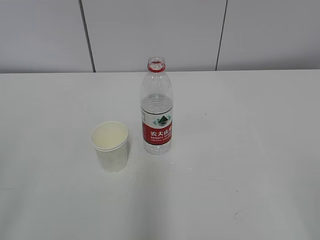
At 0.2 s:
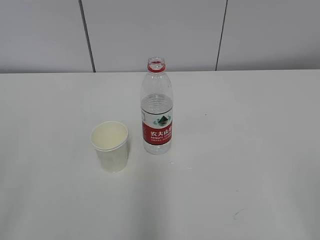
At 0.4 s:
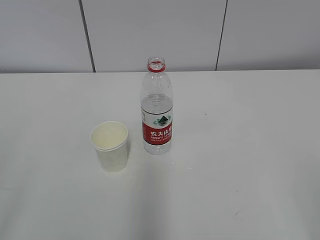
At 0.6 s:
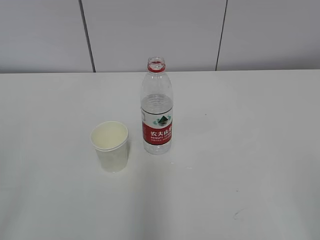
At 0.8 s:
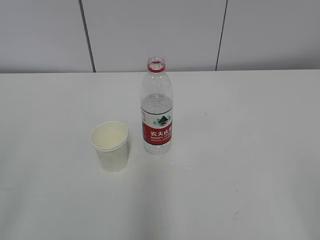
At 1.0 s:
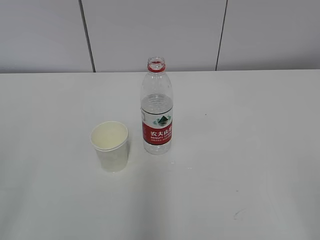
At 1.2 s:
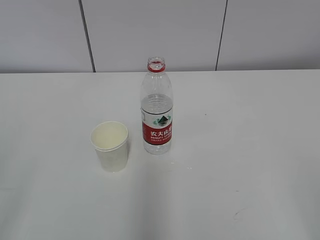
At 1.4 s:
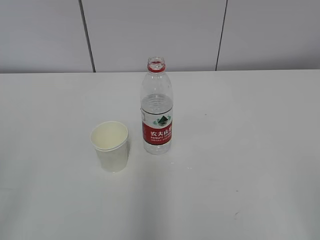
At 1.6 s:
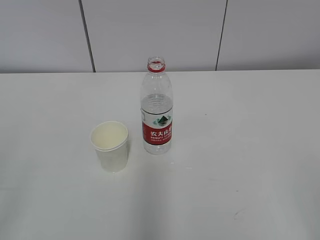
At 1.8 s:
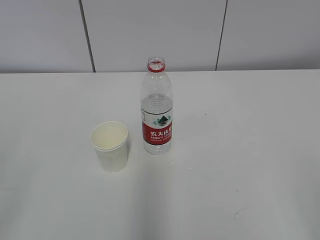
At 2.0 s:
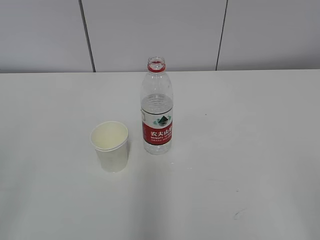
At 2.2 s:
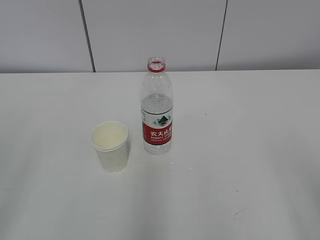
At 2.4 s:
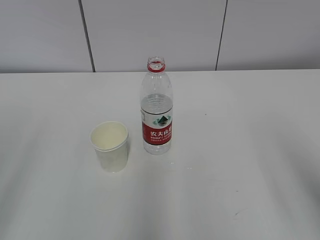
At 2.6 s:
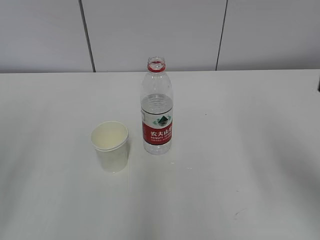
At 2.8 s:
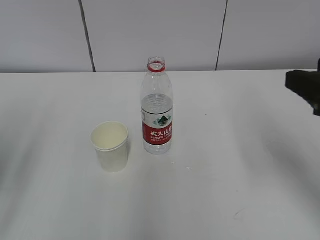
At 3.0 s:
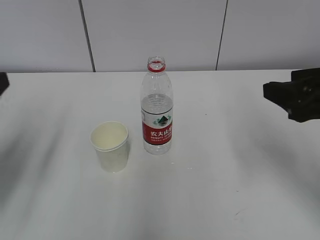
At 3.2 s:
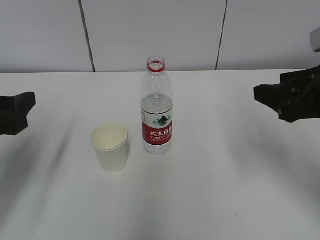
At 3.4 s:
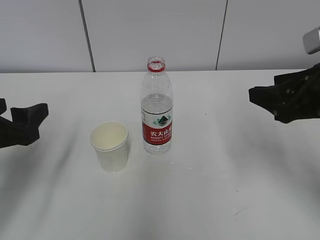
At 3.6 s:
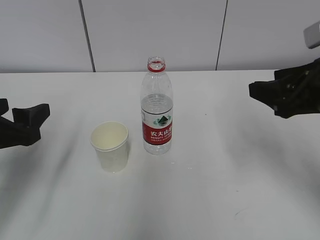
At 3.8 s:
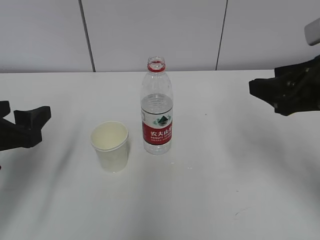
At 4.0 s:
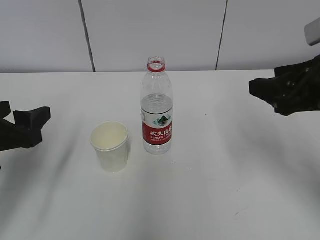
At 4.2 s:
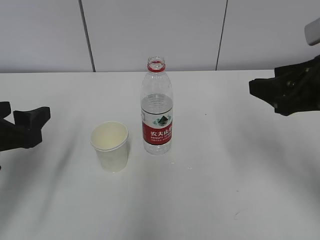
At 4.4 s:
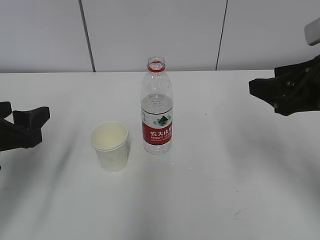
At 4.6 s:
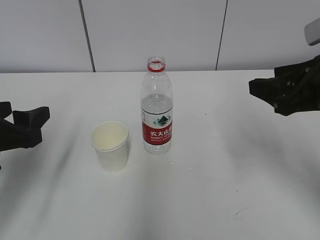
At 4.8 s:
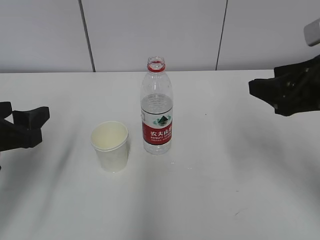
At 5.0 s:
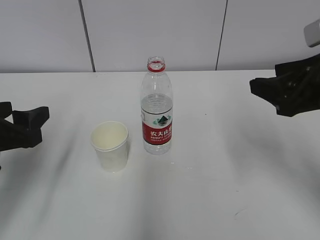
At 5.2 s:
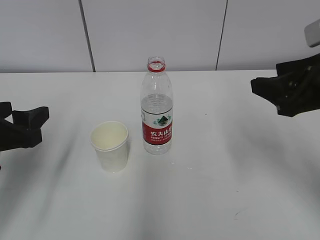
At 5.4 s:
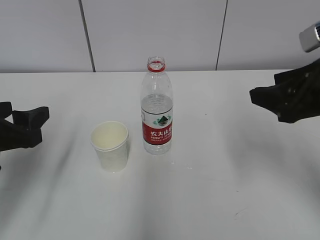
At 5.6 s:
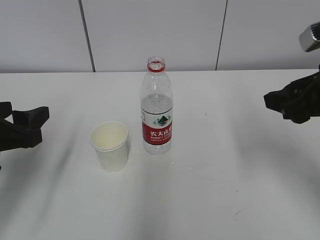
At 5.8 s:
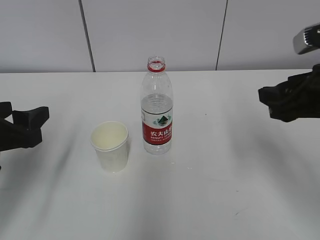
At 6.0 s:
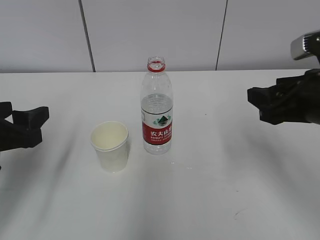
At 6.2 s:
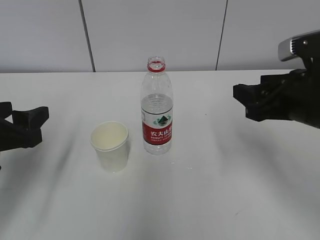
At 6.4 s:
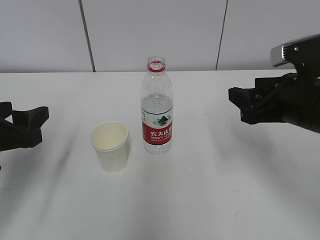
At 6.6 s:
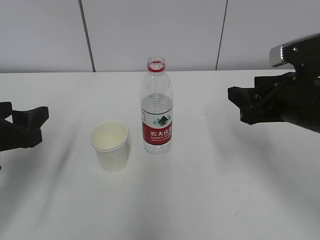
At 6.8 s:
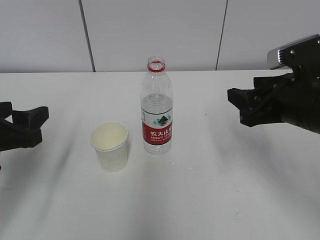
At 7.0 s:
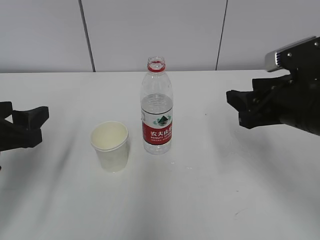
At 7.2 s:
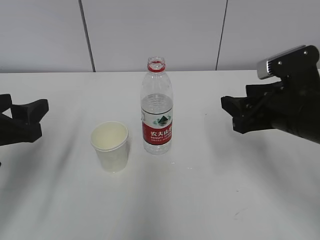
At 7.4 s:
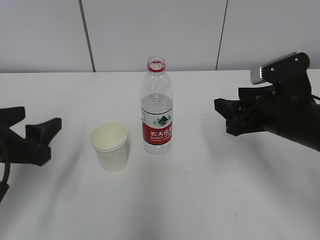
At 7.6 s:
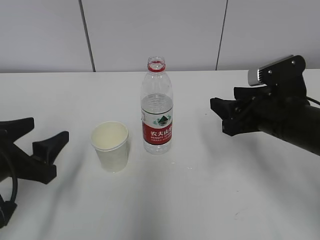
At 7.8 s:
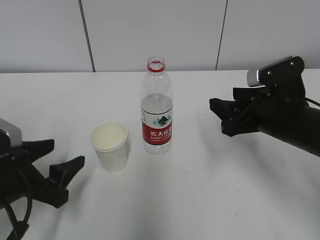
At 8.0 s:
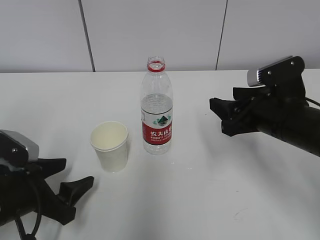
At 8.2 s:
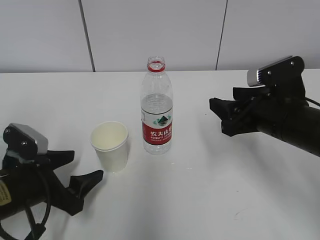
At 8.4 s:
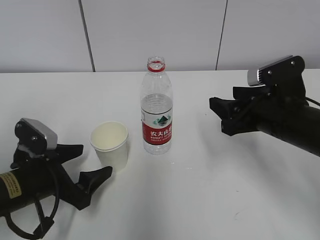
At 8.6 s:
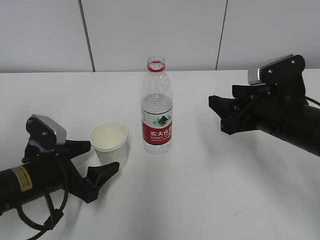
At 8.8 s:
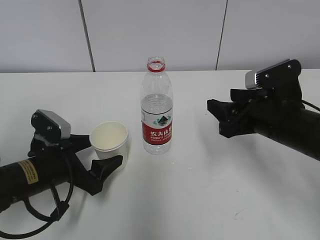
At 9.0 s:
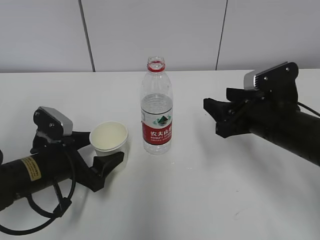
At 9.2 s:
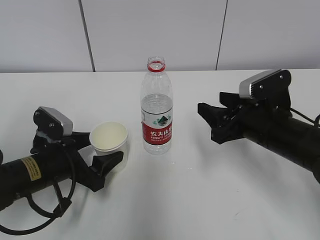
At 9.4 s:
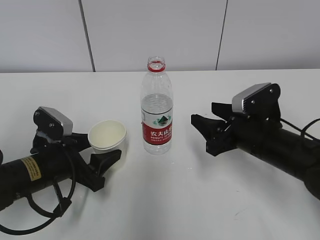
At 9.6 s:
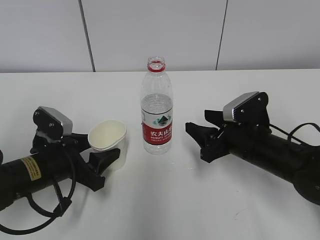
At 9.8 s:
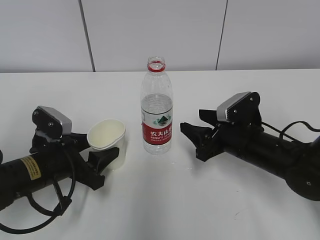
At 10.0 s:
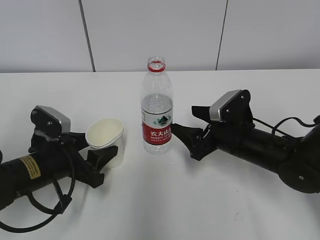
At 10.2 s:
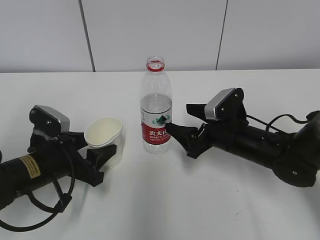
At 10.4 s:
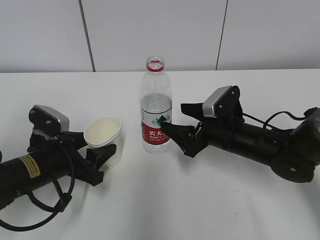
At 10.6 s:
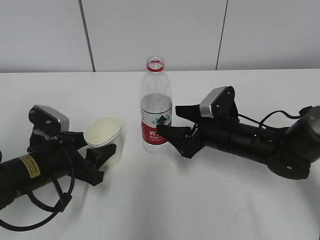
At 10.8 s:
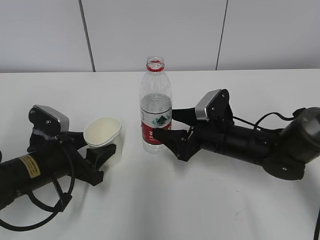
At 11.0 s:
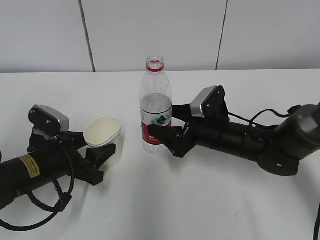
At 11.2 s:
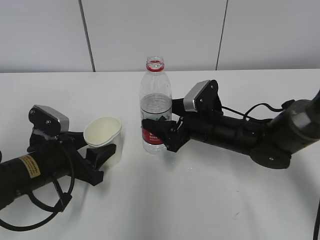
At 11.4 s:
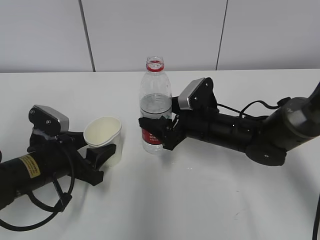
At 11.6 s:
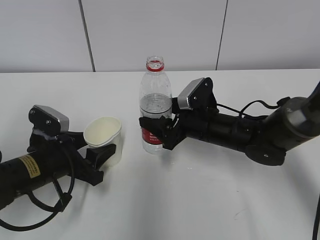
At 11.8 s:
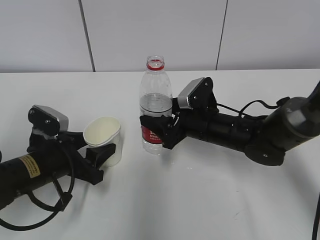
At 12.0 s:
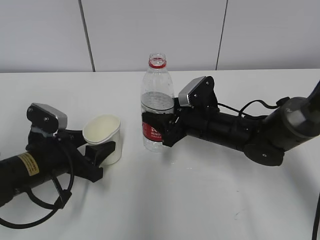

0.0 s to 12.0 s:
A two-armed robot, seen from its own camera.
Step, 0.0 to 8.0 s: Grab the paper cup with the left hand.
Step, 8.2 to 10.2 s: Grab the water bottle with the right hand.
1.6 to 3.0 s: Both grippers travel together forward, some 20 cm.
3.0 to 4.4 s: The left gripper heads downward, covering approximately 5 cm.
4.4 to 6.0 s: The grippers stay close to where they were, moving slightly.
6.0 to 7.6 s: The right gripper shifts roughly 5 cm downward.
7.6 to 9.0 s: The left gripper moves downward and forward, roughly 10 cm.
9.0 to 10.4 s: The left gripper closes up. Meanwhile the right gripper is displaced downward by about 5 cm, and opens.
10.4 to 12.0 s: The right gripper closes up.

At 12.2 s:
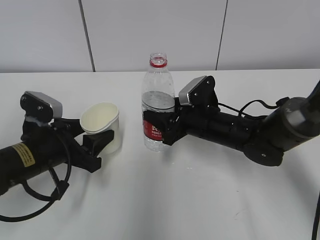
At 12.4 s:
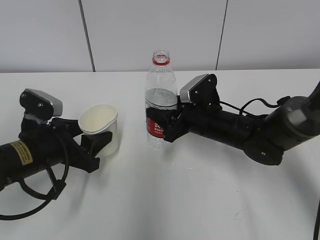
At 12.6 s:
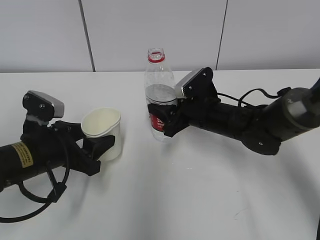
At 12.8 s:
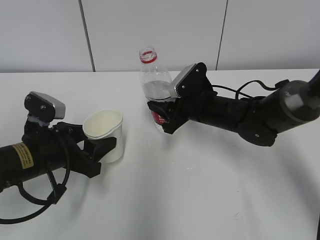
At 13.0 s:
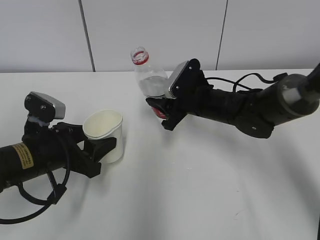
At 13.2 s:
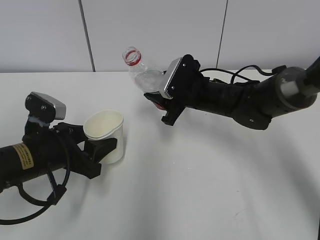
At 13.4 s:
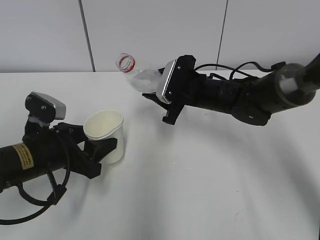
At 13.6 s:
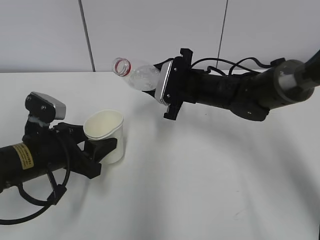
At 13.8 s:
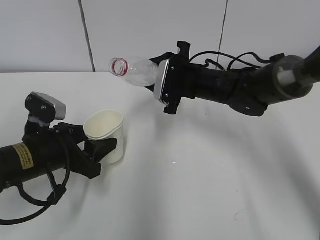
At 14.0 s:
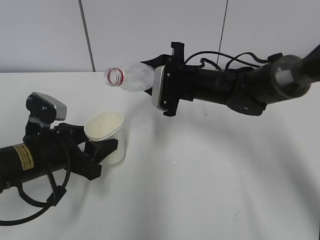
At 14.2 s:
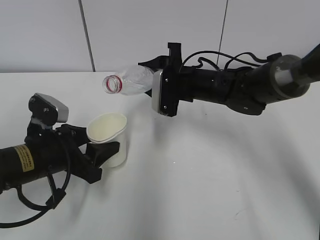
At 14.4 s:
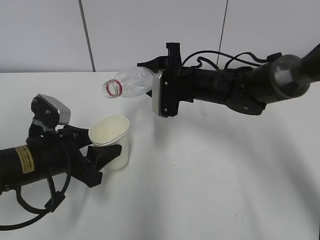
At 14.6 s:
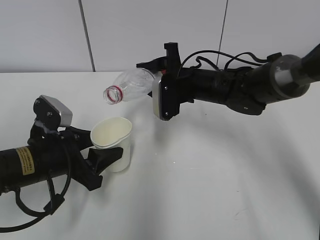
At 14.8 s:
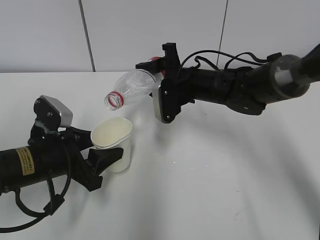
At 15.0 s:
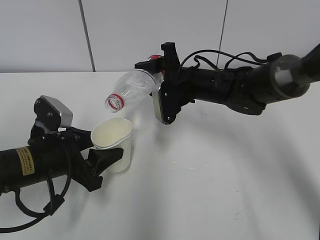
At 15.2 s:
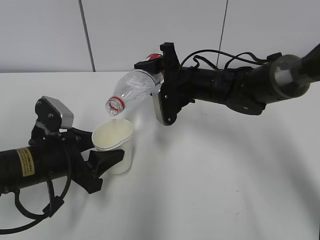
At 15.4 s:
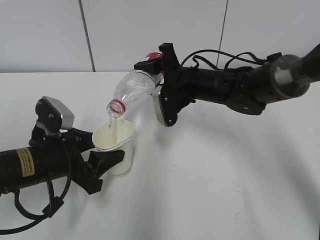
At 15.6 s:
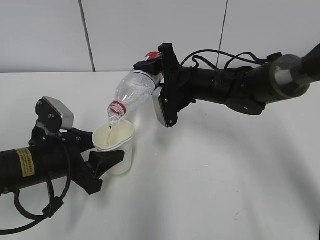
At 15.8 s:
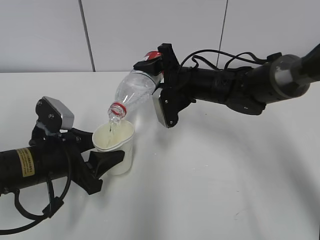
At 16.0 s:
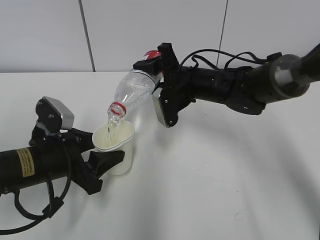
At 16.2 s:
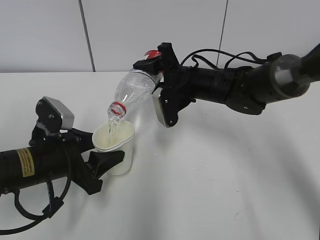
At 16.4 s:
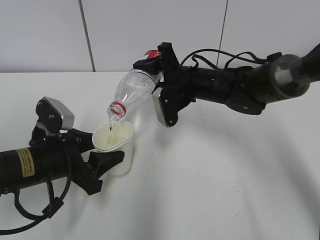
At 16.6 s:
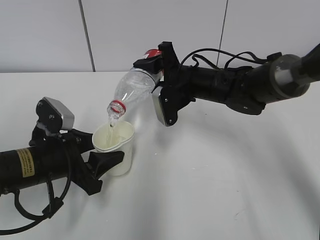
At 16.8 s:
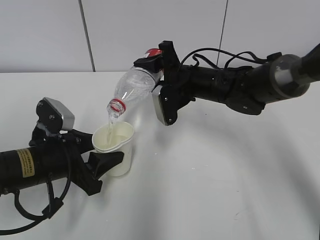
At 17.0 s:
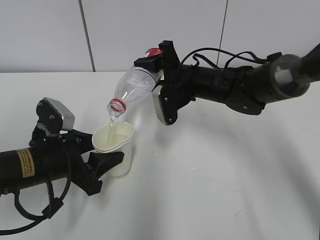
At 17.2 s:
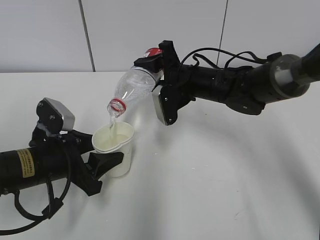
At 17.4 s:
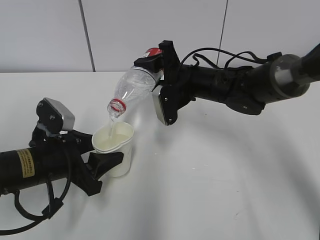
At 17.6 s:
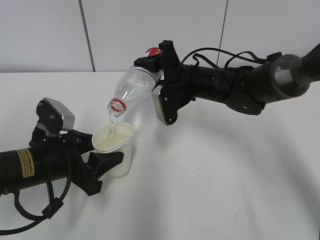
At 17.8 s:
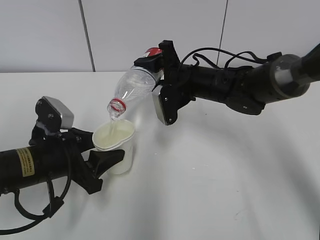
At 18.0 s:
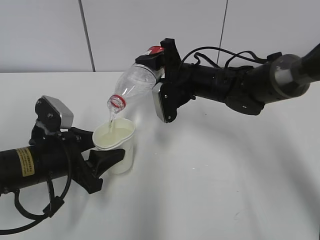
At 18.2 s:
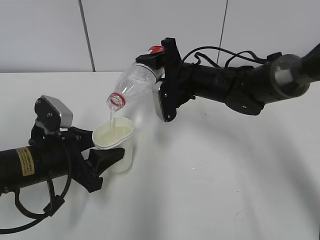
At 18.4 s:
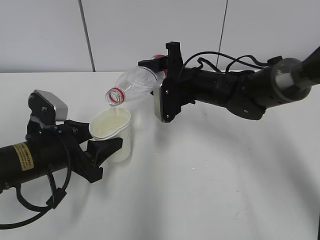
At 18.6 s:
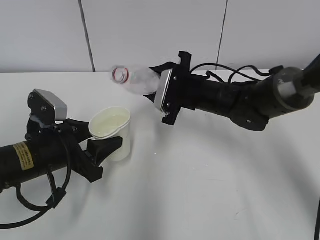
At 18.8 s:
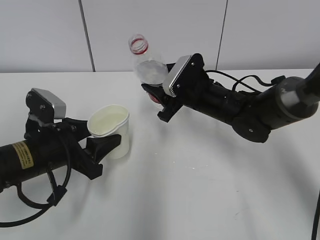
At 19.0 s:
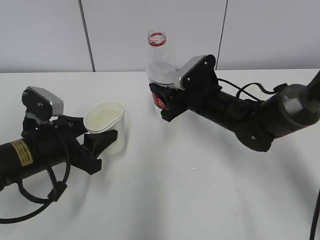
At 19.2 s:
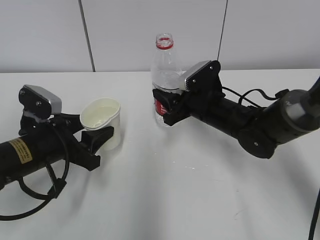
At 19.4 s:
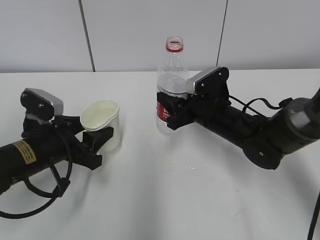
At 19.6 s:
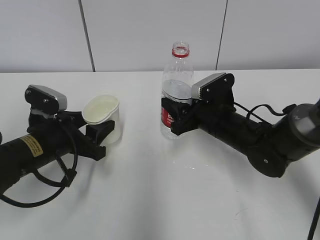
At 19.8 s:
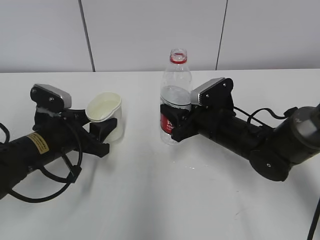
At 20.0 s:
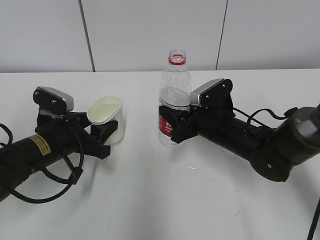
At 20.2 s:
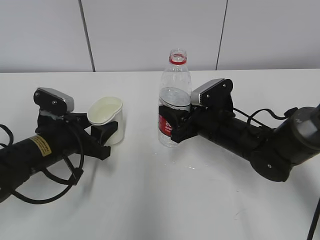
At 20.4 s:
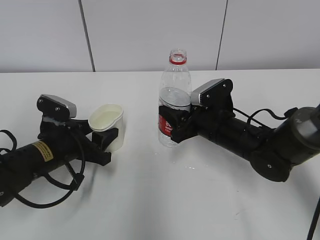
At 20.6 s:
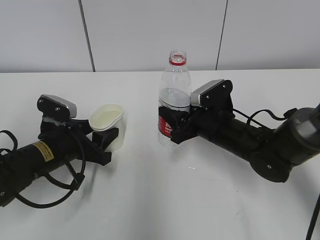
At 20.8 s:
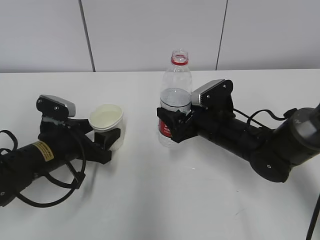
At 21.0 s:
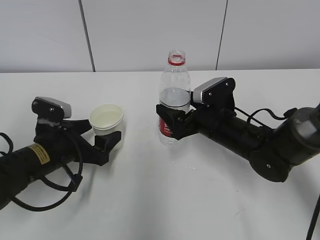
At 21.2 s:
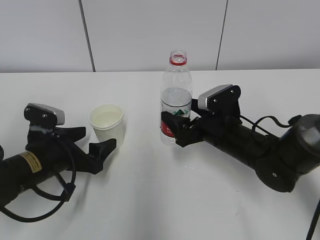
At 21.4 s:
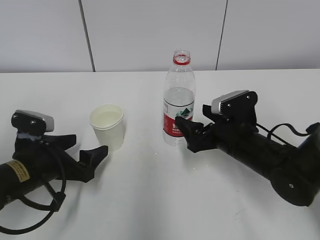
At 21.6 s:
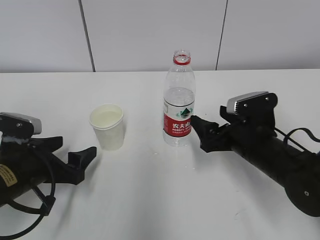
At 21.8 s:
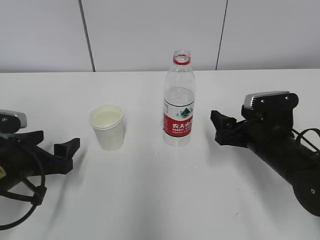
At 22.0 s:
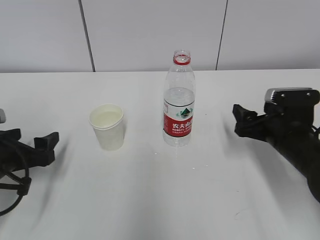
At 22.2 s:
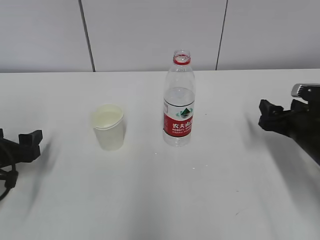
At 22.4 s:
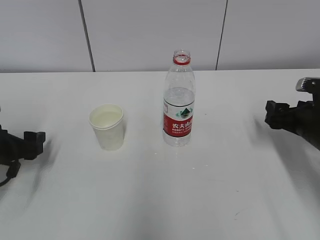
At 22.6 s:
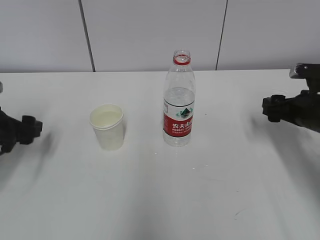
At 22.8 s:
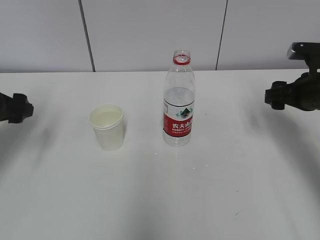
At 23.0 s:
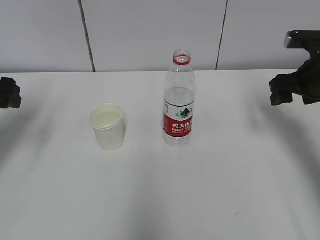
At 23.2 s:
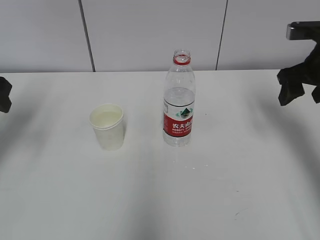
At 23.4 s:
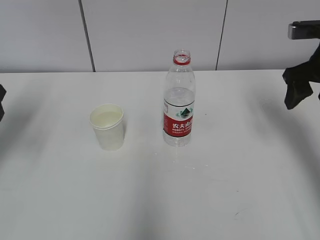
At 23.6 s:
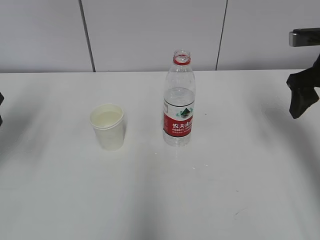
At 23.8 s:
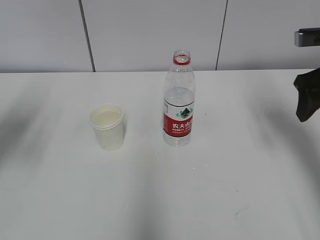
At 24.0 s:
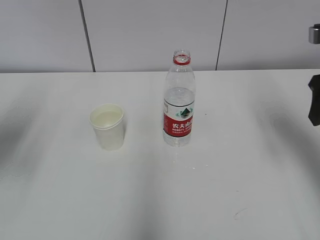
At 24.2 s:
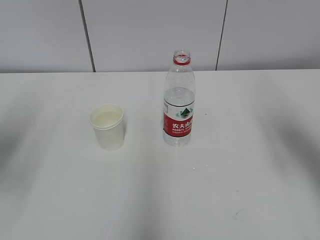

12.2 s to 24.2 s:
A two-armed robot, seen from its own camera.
Step, 12.8 to 15.2 s: Fill water with the left hand.
Step, 12.8 to 15.2 s: Pour water with the right hand.
Step, 16.0 to 17.2 s: Place the paper cup with the left hand.
Step, 16.0 to 17.2 s: Place the water bottle with the right hand.
12.2 to 13.8 s: The right gripper travels upward and forward by about 10 cm.
15.2 to 16.6 s: The grippers make only small movements.
16.6 to 18.2 s: Both grippers stay put.
18.2 to 19.8 s: The right gripper travels backward and downward by approximately 10 cm.
19.8 to 21.2 s: The left gripper opens its fingers. The right gripper opens up.
21.2 to 22.6 s: The left gripper goes some 10 cm to the left; the right gripper moves to the right, about 15 cm.
22.6 to 24.2 s: The two grippers go some 20 cm upward and backward.
